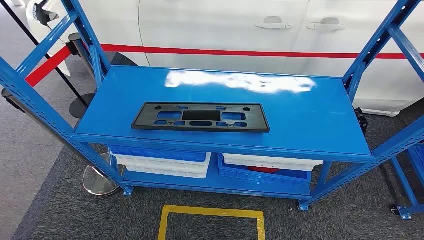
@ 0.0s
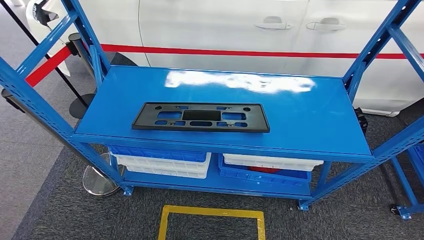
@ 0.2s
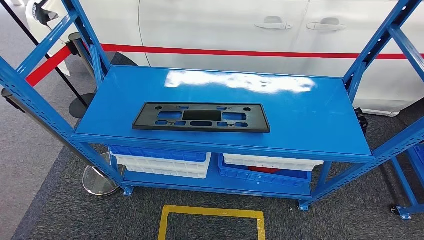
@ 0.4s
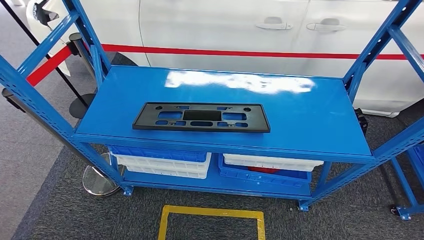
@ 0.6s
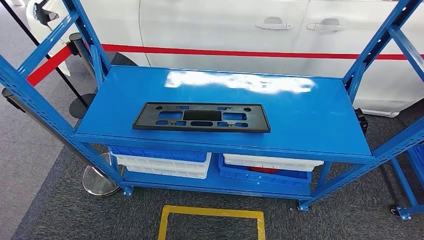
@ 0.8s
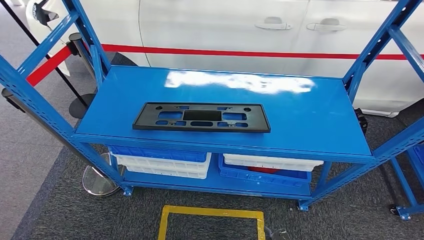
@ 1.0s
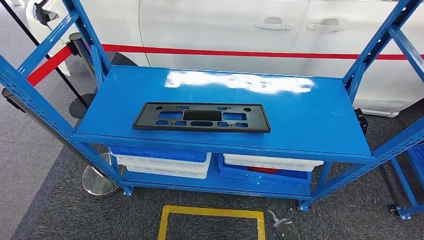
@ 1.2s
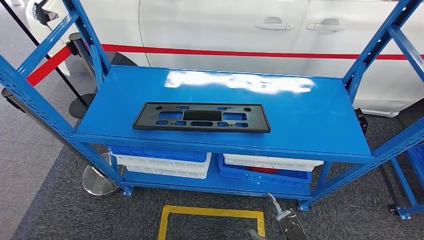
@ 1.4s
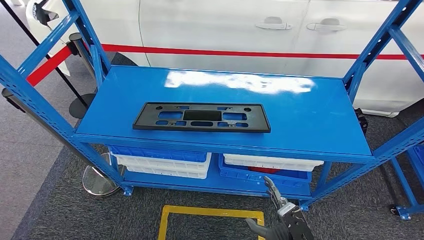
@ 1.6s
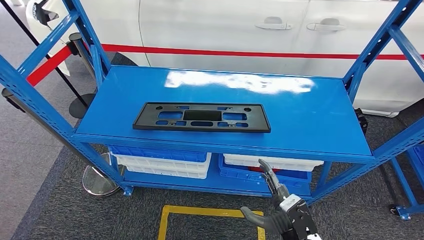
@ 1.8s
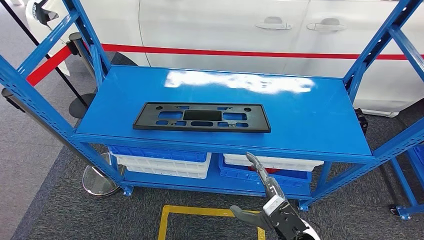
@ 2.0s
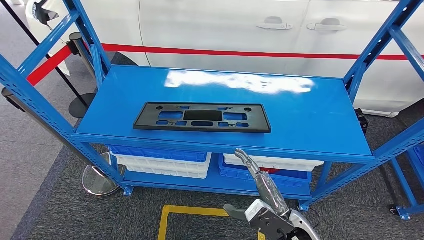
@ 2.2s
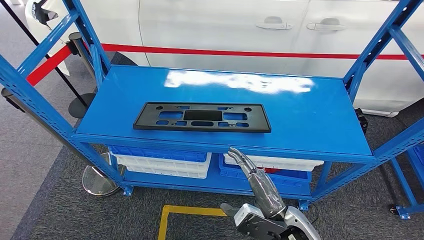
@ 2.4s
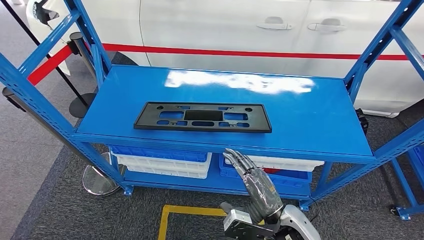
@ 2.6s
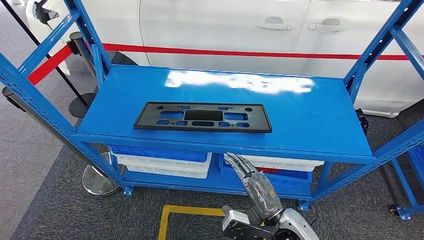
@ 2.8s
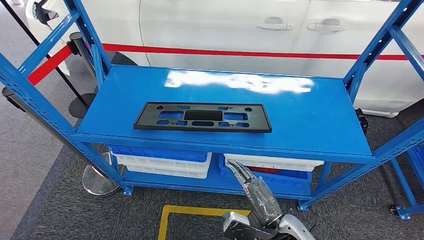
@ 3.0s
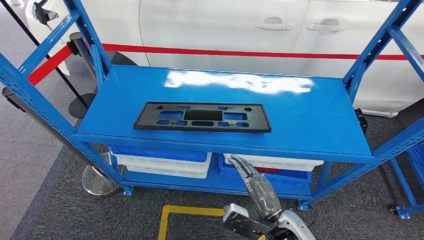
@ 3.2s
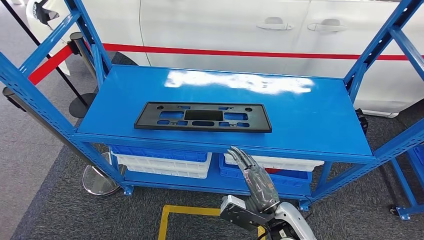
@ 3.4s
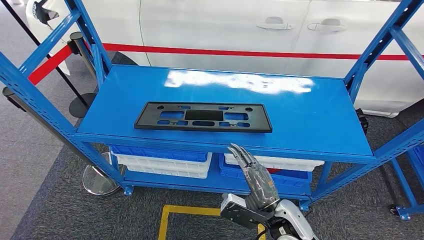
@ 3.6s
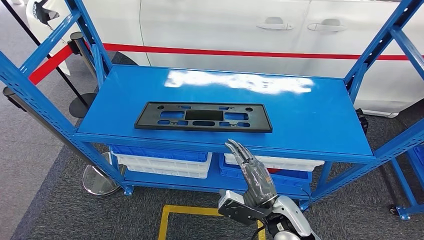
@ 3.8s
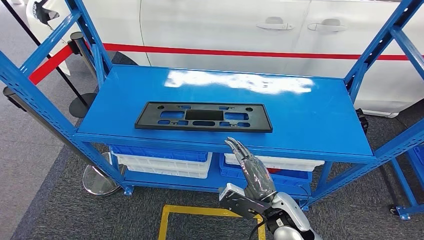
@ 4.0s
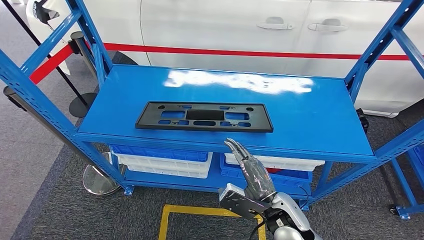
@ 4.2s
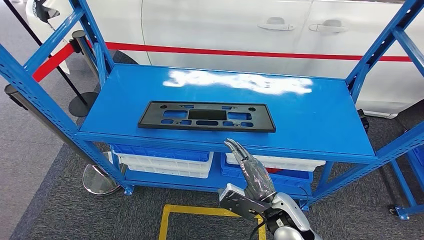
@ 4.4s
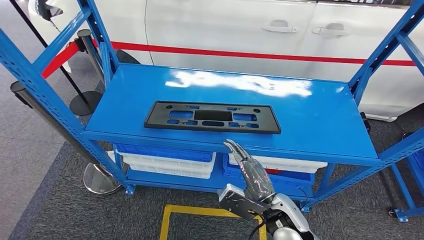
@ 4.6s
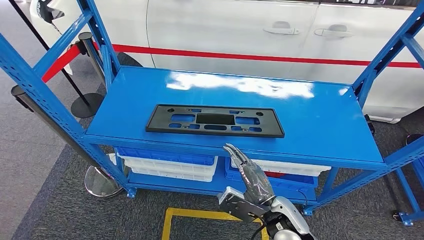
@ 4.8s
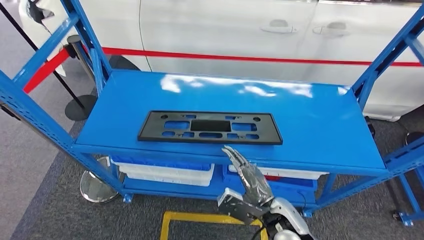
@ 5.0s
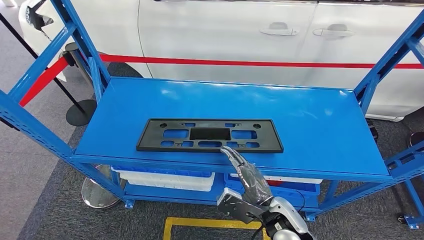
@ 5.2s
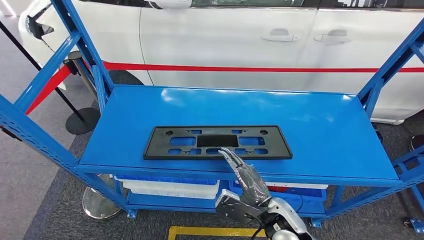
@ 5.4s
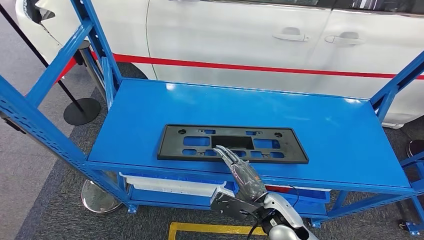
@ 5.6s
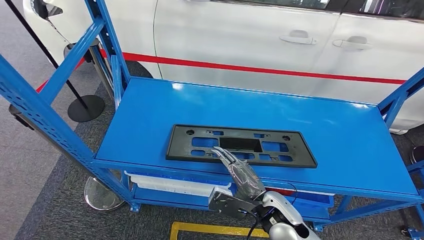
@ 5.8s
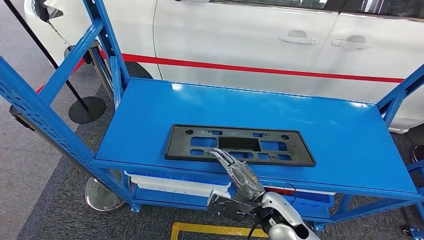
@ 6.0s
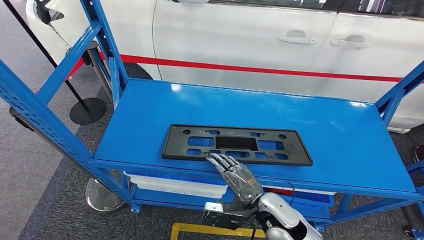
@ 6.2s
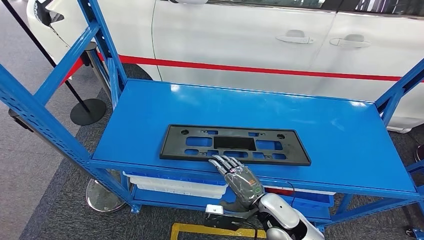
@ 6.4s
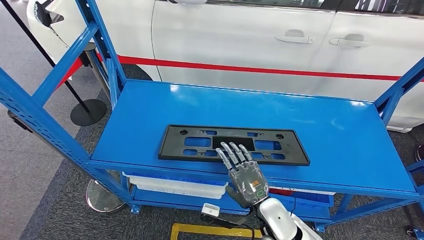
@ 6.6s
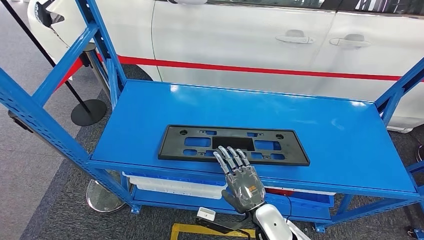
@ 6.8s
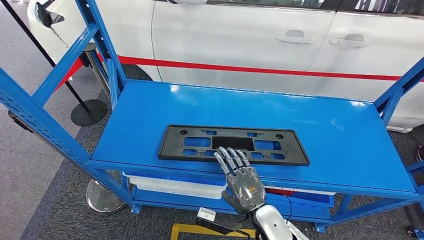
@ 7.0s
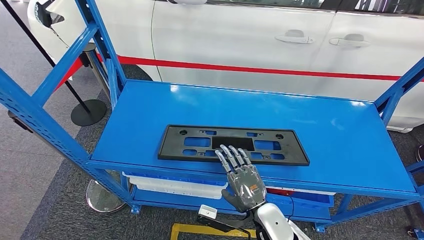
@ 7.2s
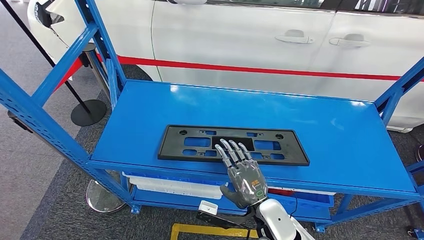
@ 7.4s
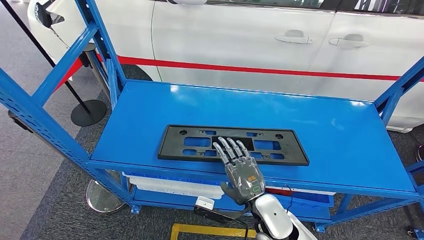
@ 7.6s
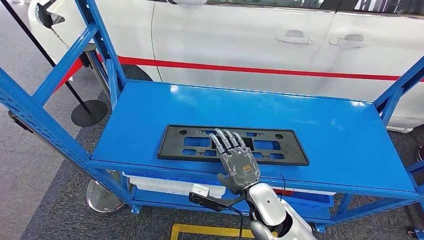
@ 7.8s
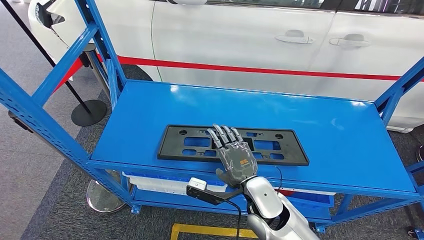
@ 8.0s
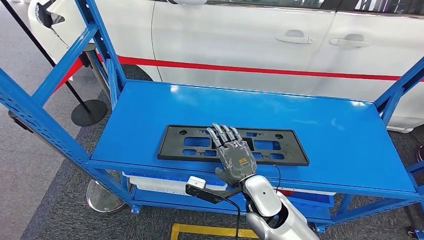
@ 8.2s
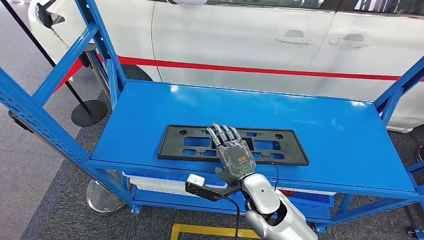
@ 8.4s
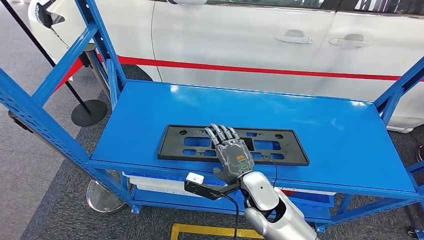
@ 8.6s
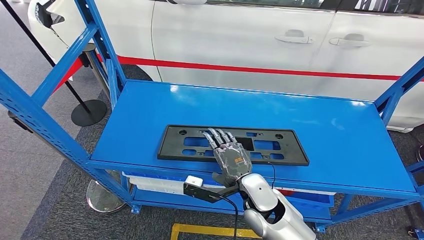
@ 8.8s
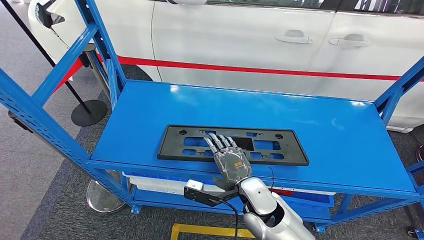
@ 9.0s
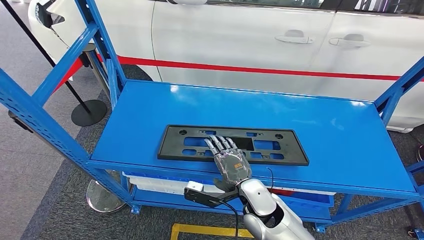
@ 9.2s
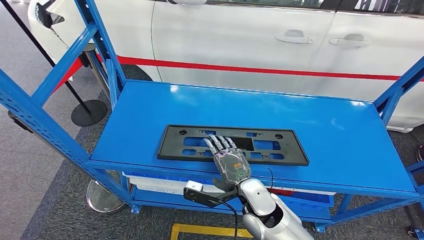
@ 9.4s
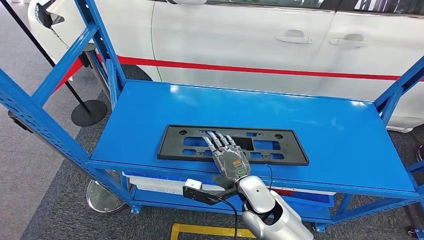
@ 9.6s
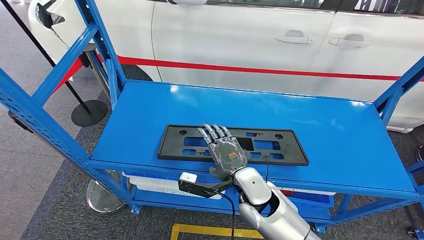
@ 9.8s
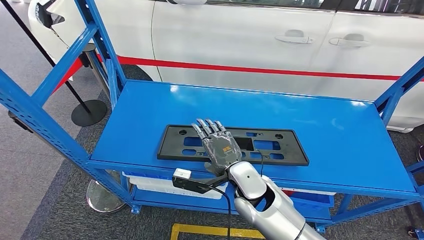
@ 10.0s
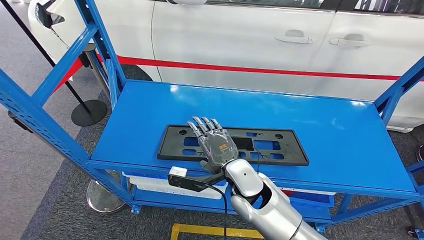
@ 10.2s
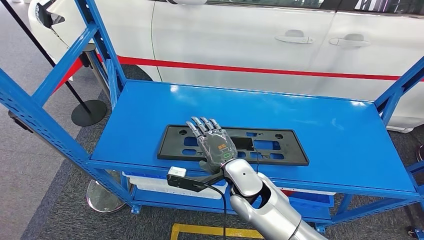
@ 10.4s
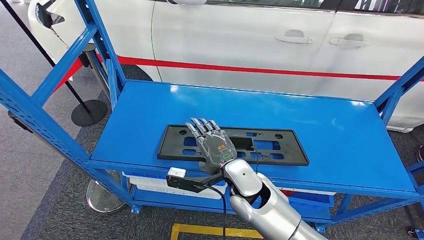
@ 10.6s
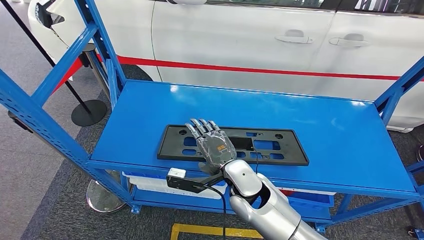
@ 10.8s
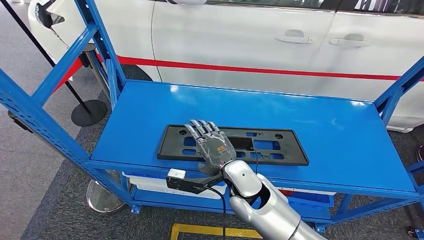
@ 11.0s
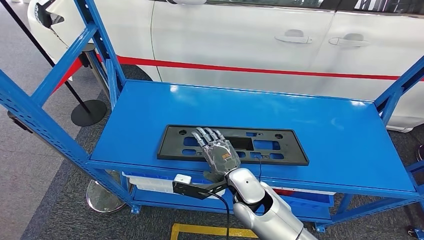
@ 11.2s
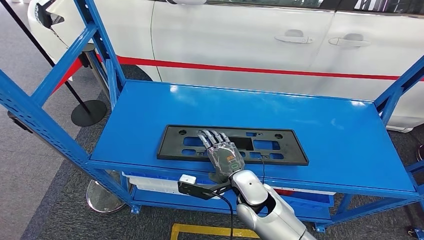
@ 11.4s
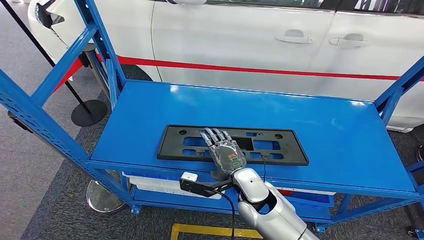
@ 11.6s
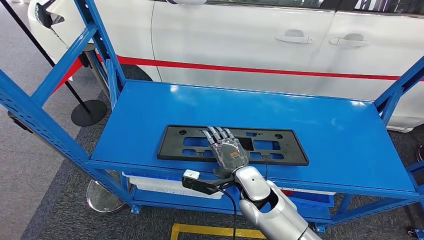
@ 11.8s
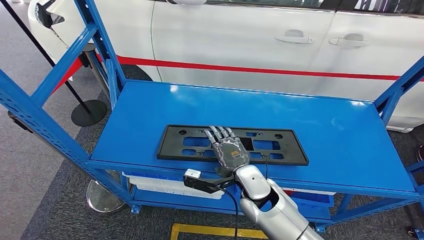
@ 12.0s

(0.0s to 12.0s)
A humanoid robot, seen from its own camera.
1.6s - 3.0s: The right hand shifts about 5 cm upward.
3.0s - 4.4s: The right hand ends up some 5 cm from where it was.
7.6s - 9.0s: The hands stay close to where they were, moving slightly.
9.0s - 10.4s: The right hand moves approximately 5 cm.
10.4s - 12.0s: The hands make only small movements.

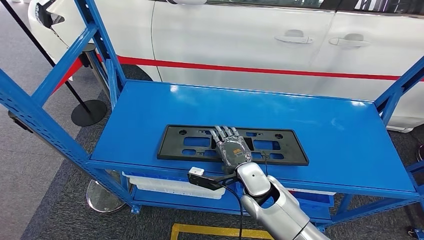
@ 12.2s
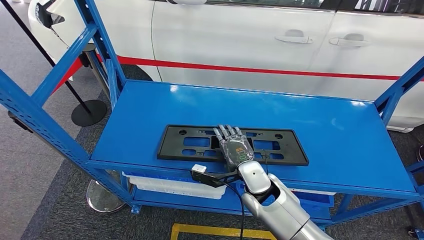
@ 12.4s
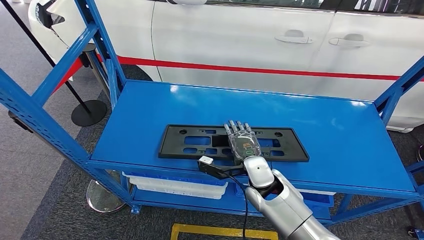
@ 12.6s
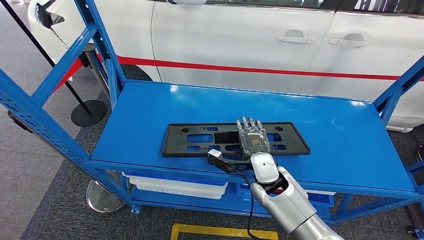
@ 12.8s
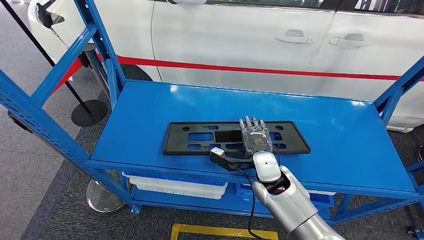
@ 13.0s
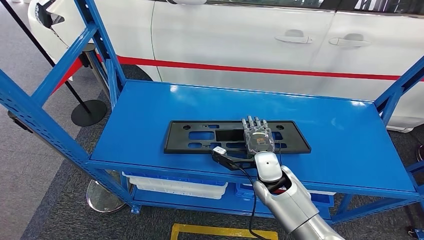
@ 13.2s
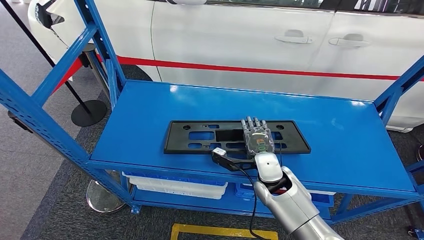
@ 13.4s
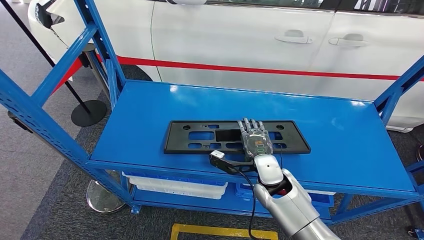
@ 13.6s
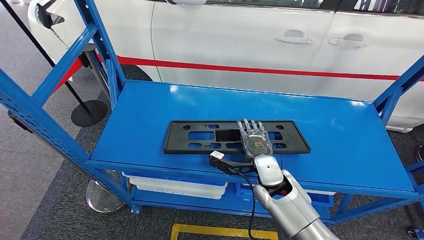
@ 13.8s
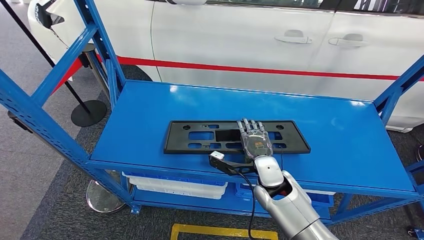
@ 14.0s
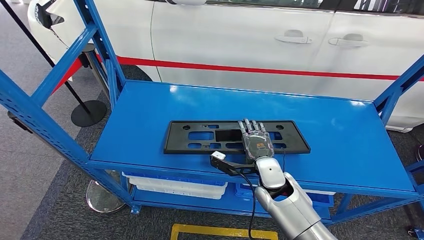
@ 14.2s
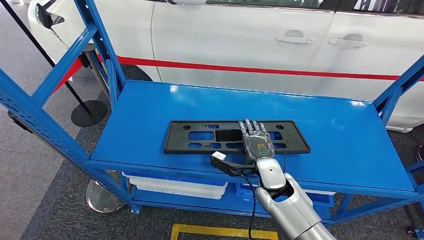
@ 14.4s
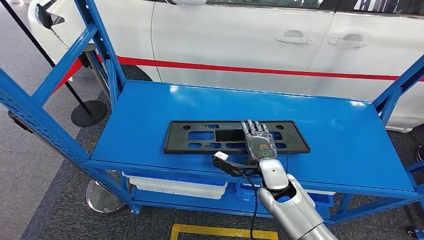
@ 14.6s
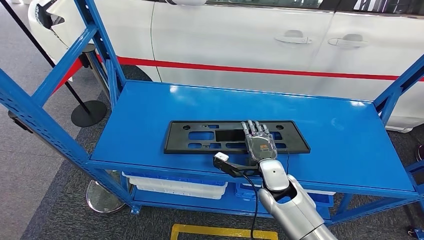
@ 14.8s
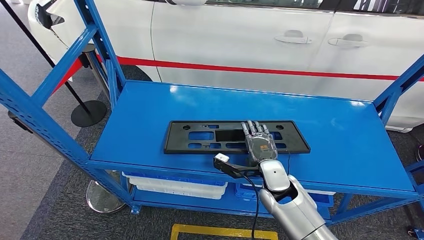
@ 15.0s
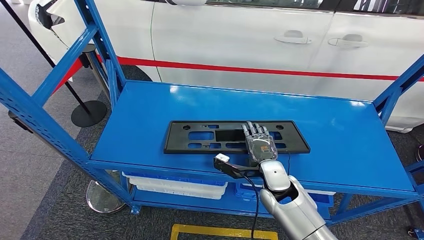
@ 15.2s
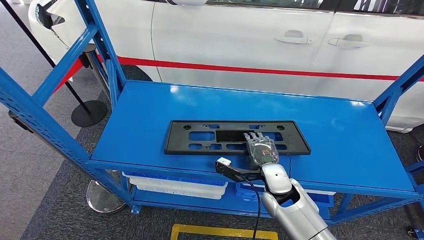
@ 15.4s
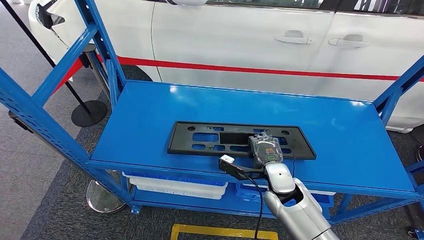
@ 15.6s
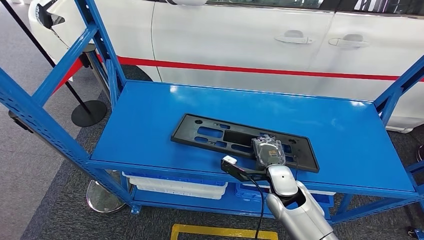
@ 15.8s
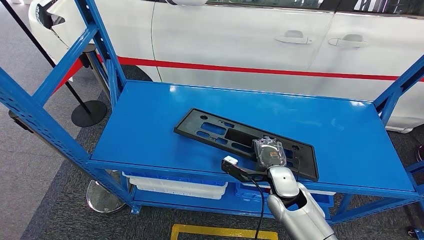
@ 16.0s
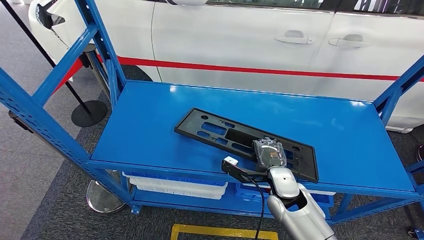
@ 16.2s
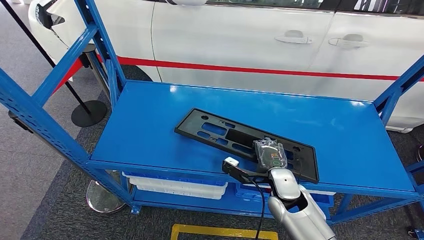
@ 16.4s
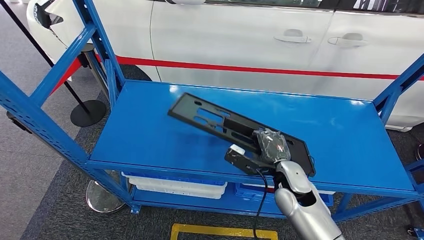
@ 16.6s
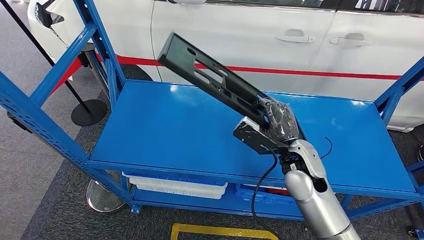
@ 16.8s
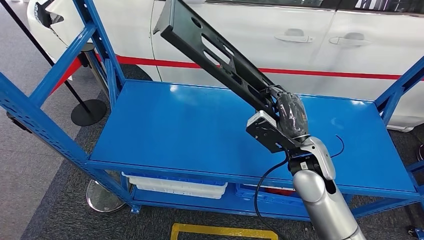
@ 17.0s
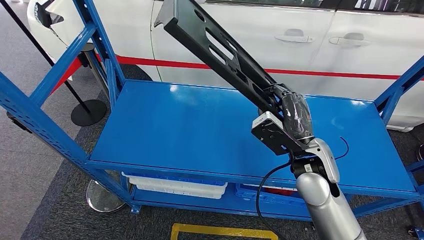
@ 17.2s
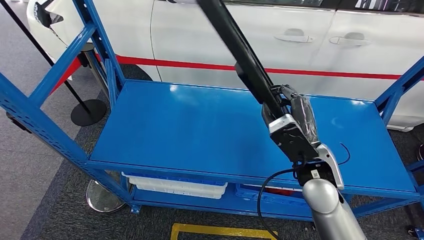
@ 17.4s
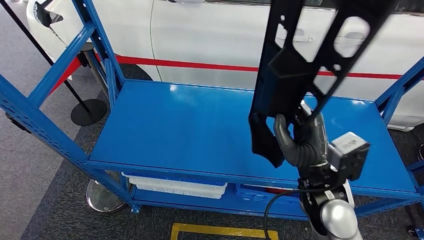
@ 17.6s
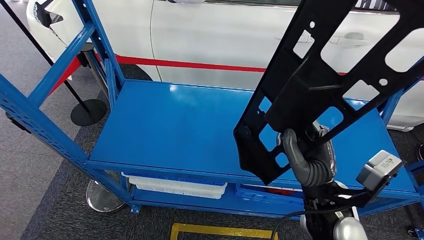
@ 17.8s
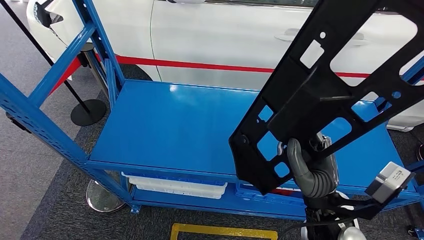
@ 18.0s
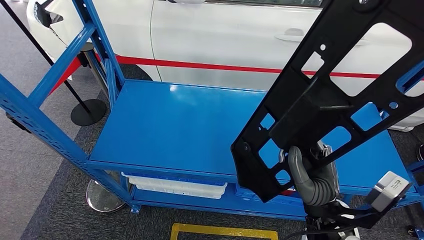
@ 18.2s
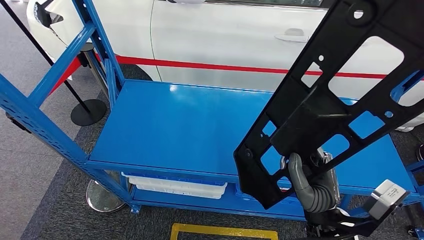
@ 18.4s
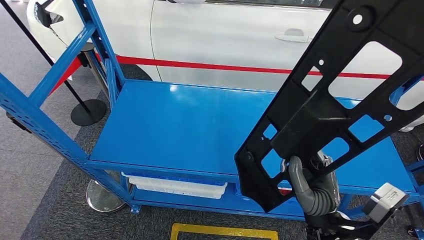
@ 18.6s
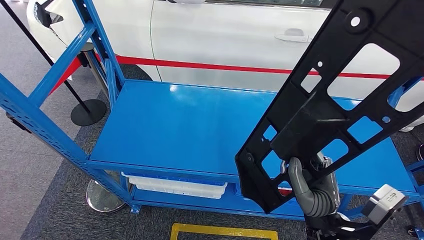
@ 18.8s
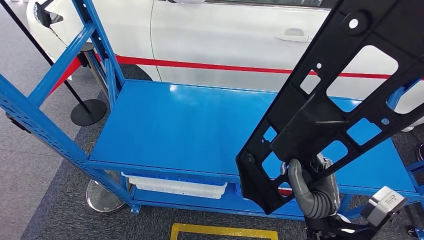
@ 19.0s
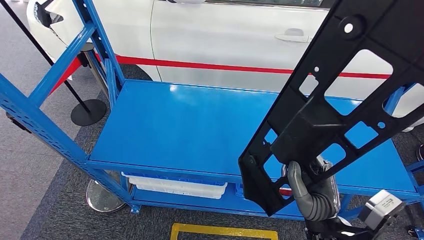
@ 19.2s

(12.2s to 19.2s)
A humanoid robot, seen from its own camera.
Step, 12.2s - 18.4s: Pick up the large parts from the shelf.
13.6s - 16.4s: The hands stay close to where they were, moving slightly.
